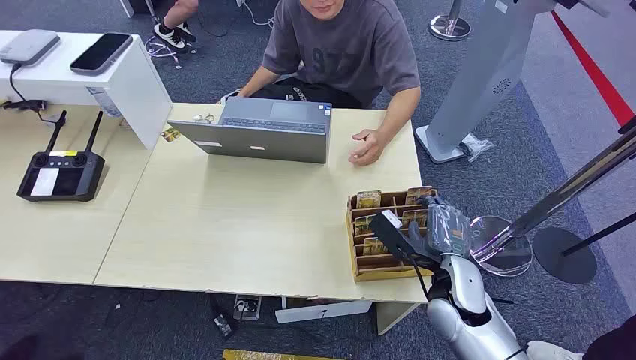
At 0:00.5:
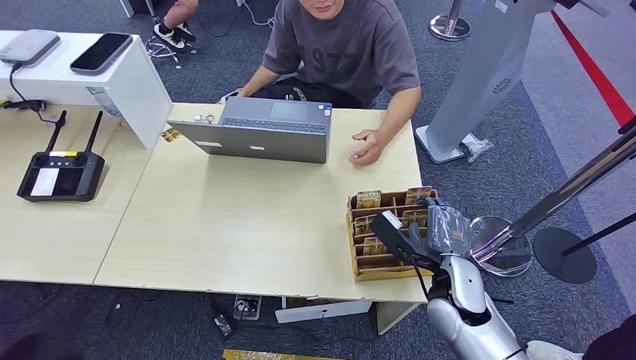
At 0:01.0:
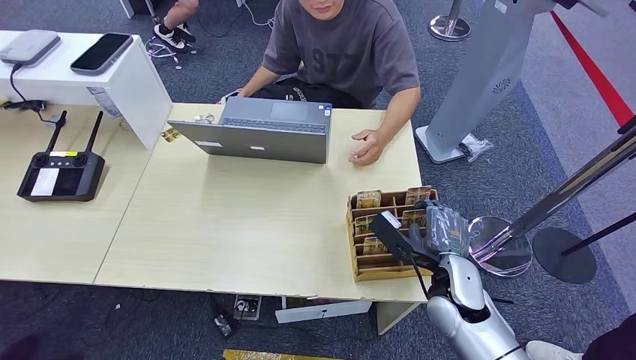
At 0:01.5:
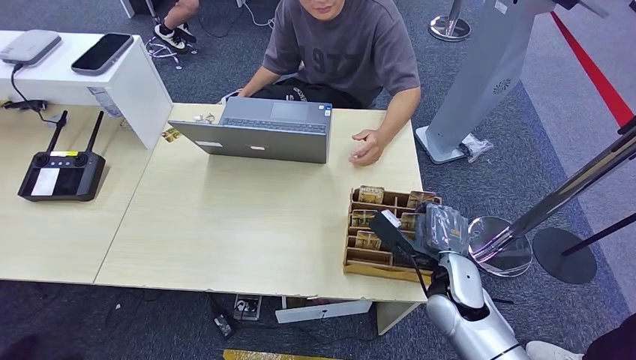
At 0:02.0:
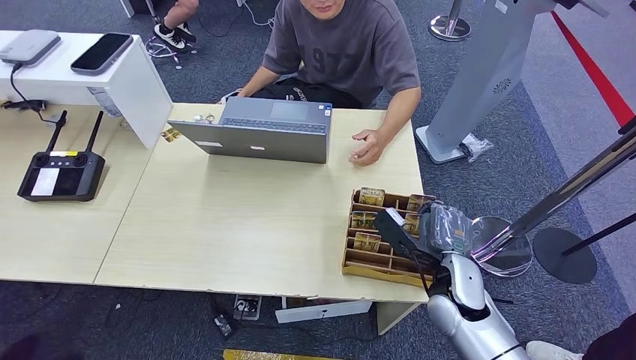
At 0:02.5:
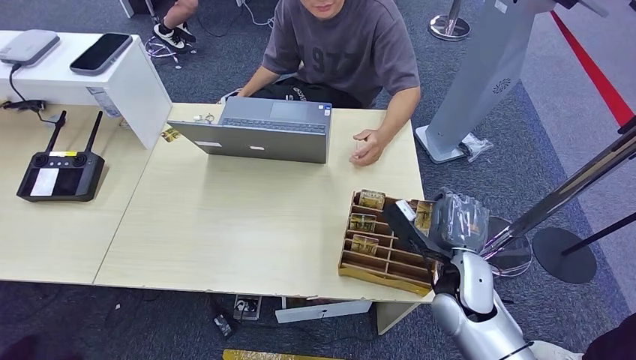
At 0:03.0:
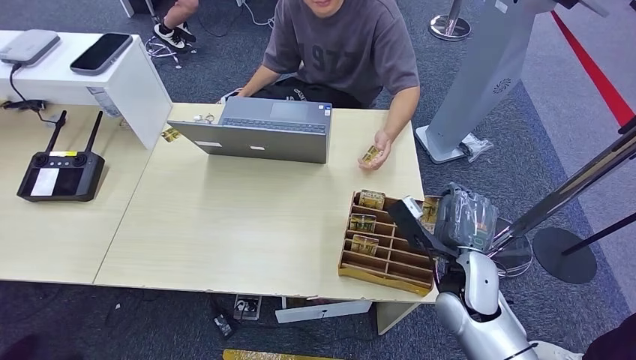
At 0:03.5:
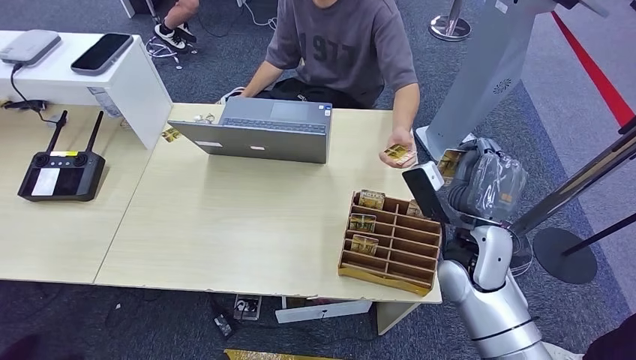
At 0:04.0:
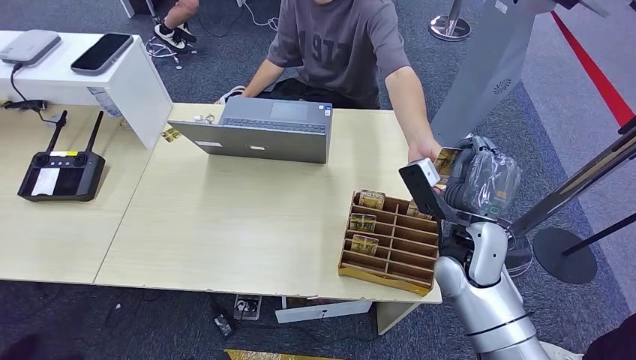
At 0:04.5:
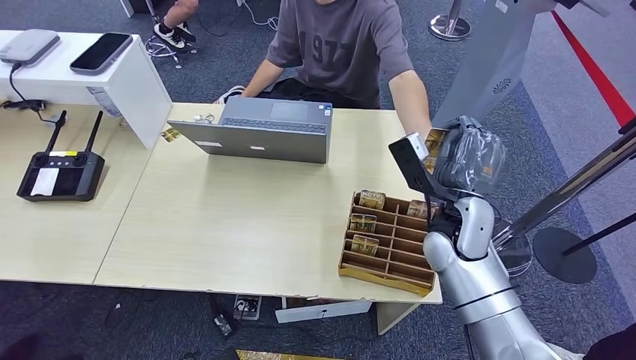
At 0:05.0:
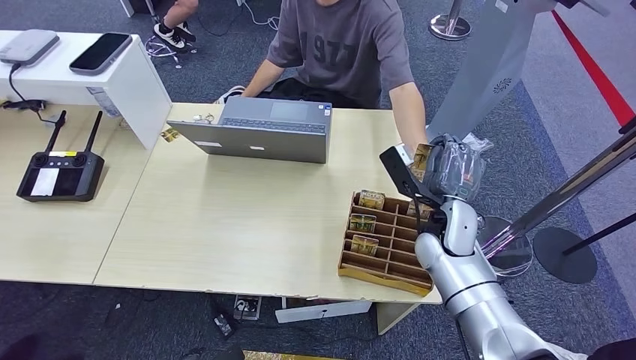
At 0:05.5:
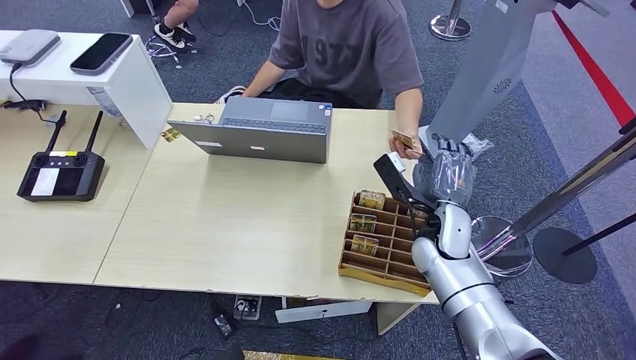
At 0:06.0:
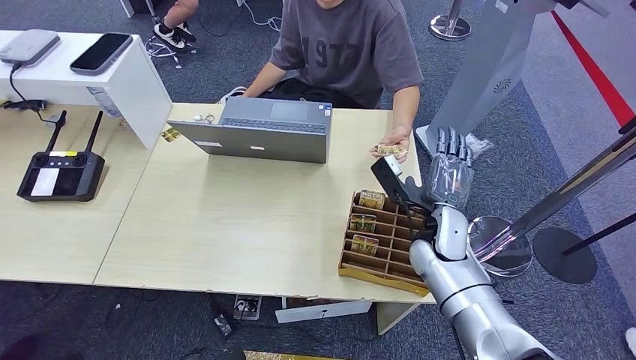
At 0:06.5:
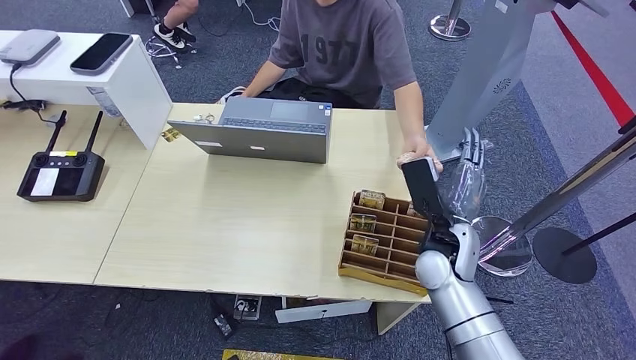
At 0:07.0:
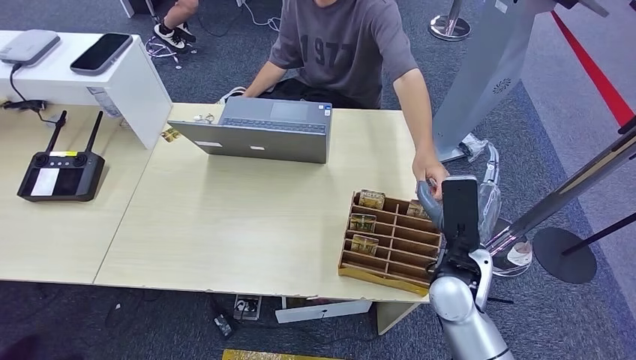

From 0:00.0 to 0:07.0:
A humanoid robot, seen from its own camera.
Step, from 0:00.0 to 0:03.0: Pick up the key card from the card box.
Step, from 0:04.0 to 0:07.0: Hand the key card to the target.
From 0:02.0 to 0:03.5: The right hand is displaced upward by about 10 cm.
From 0:03.5 to 0:05.0: The right hand is displaced forward by roughly 5 cm.
From 0:05.0 to 0:07.0: The right hand travels backward by approximately 10 cm.
